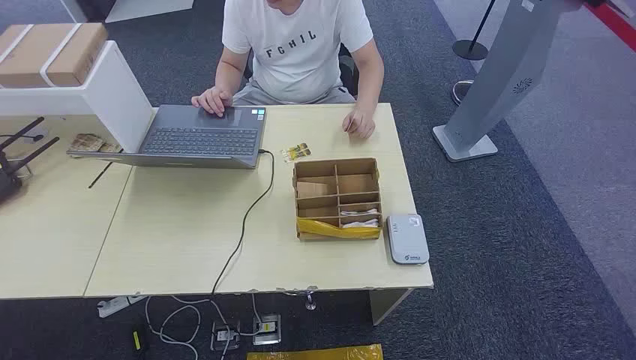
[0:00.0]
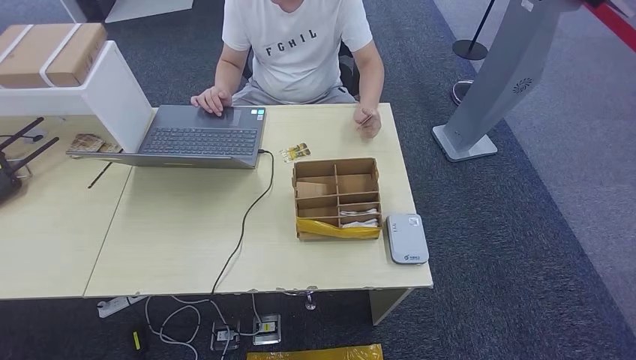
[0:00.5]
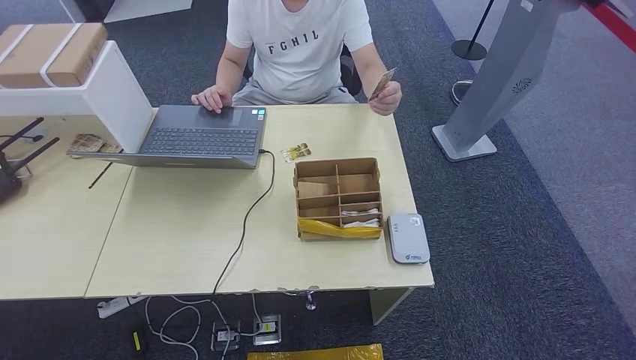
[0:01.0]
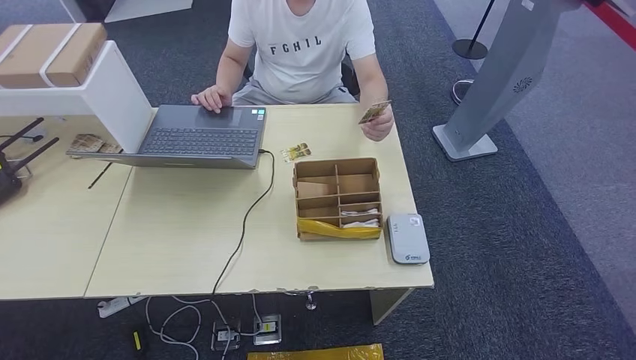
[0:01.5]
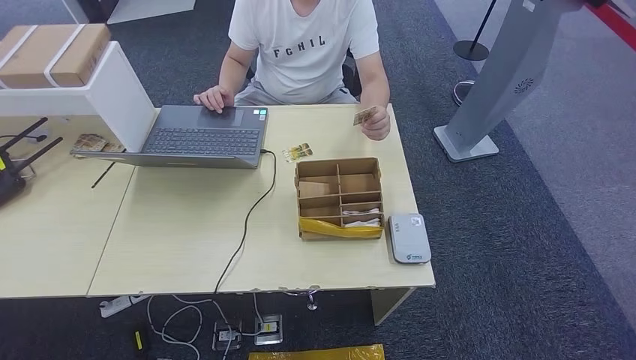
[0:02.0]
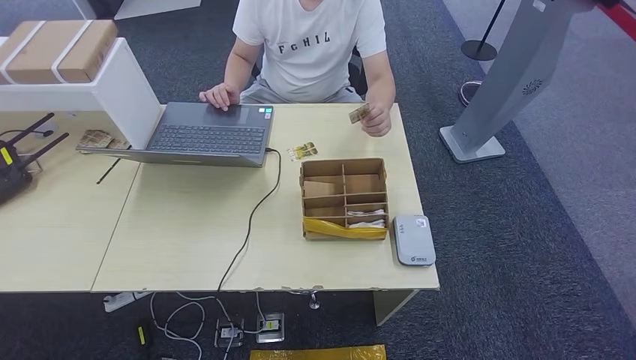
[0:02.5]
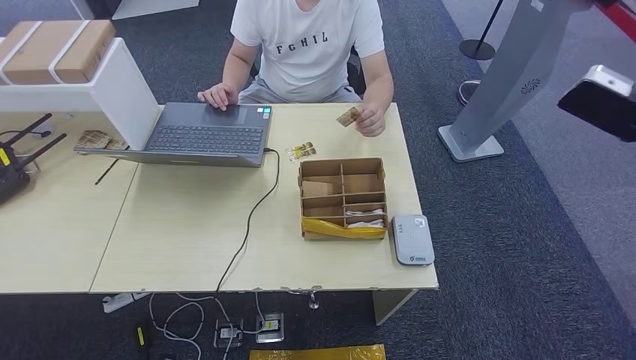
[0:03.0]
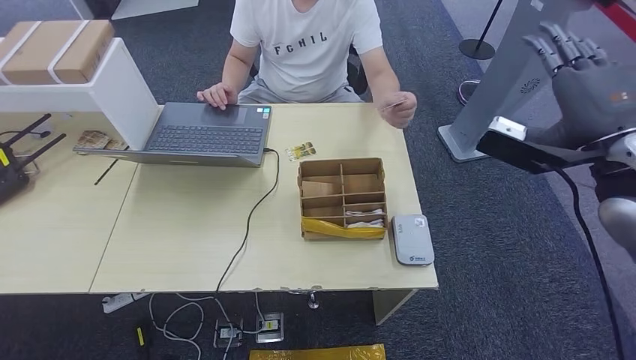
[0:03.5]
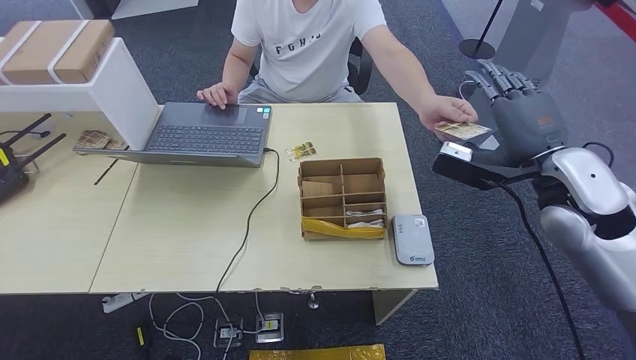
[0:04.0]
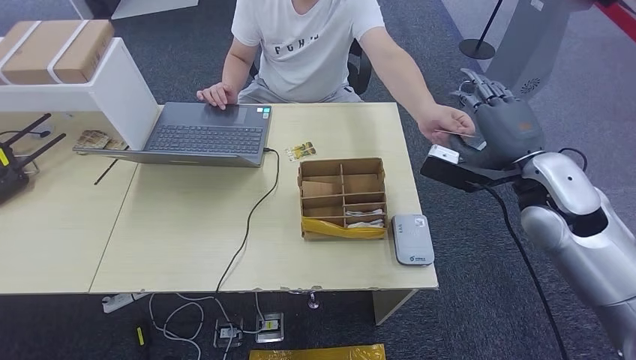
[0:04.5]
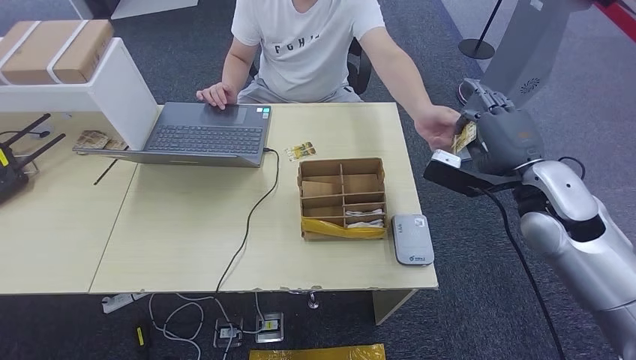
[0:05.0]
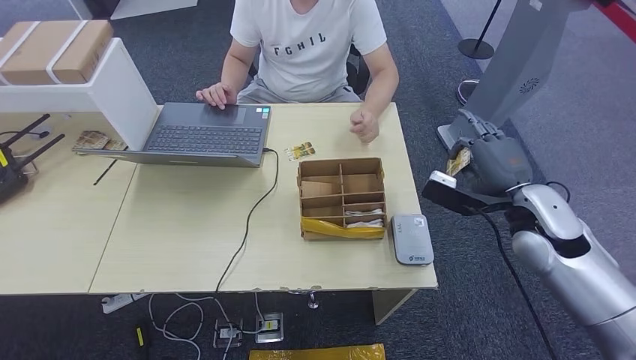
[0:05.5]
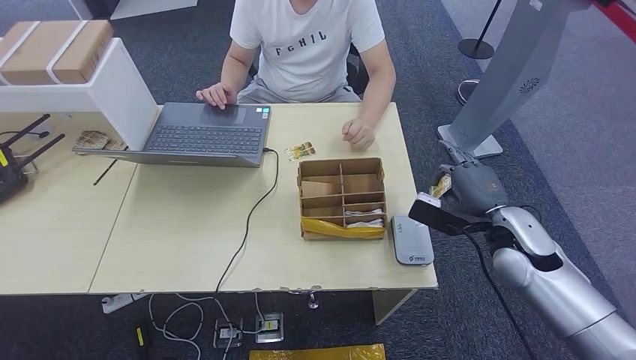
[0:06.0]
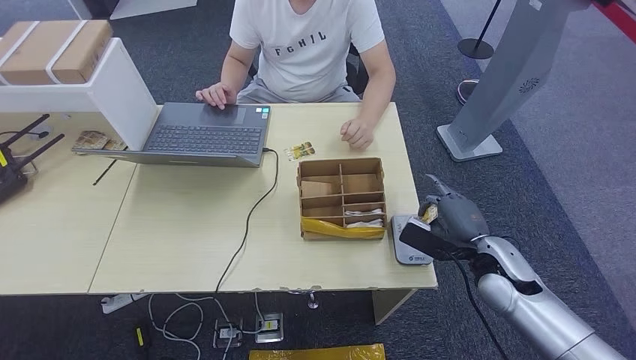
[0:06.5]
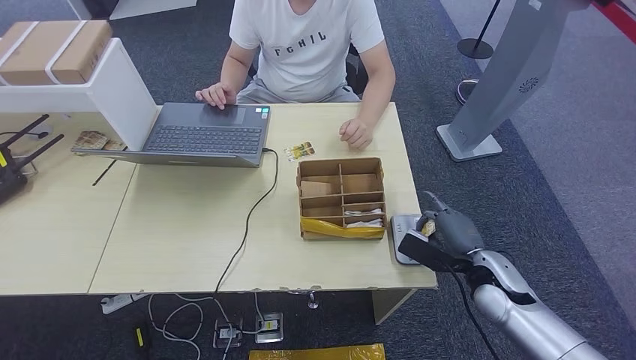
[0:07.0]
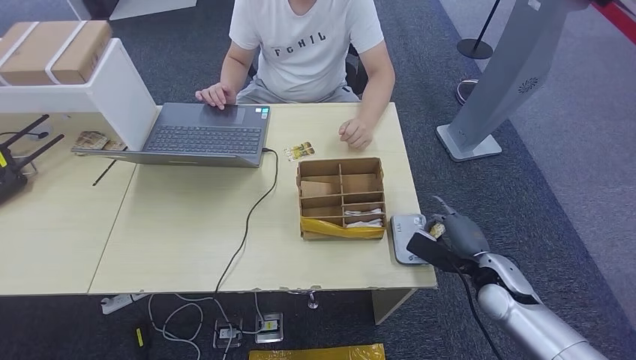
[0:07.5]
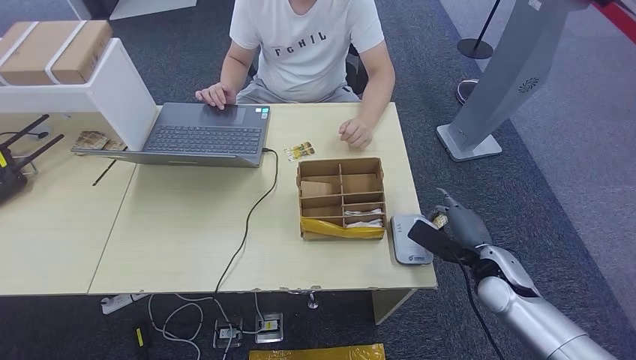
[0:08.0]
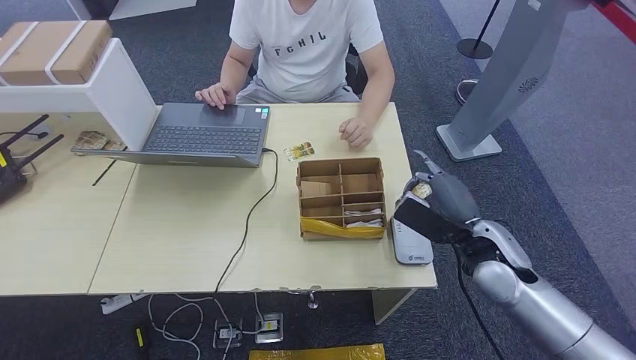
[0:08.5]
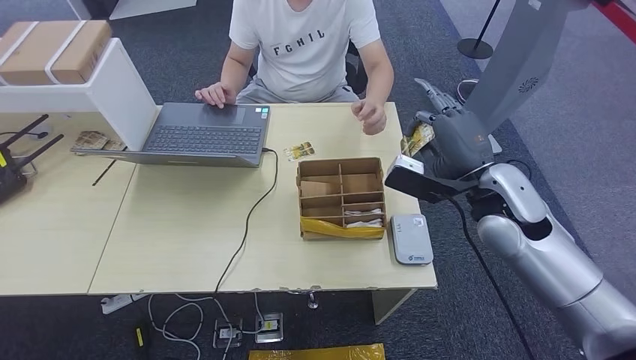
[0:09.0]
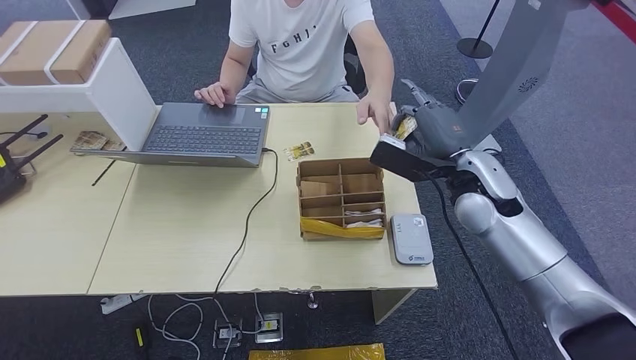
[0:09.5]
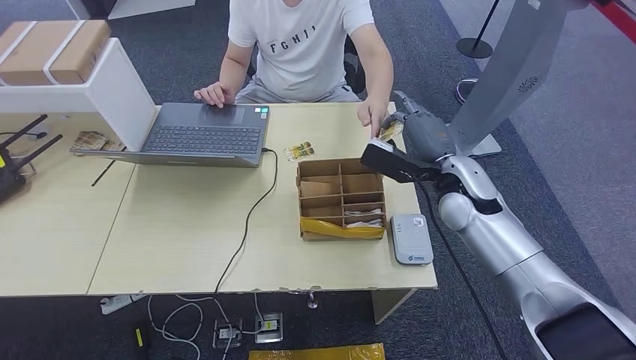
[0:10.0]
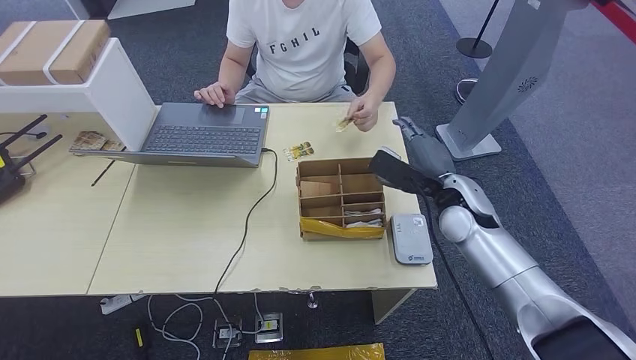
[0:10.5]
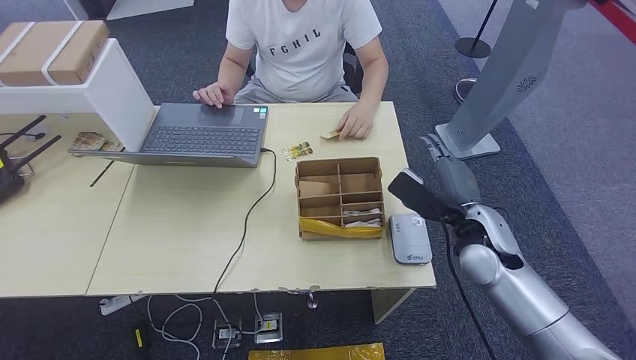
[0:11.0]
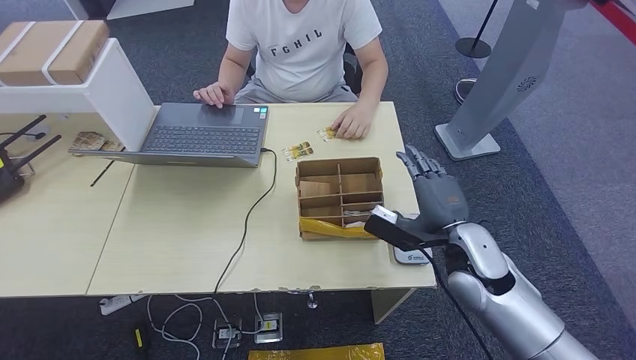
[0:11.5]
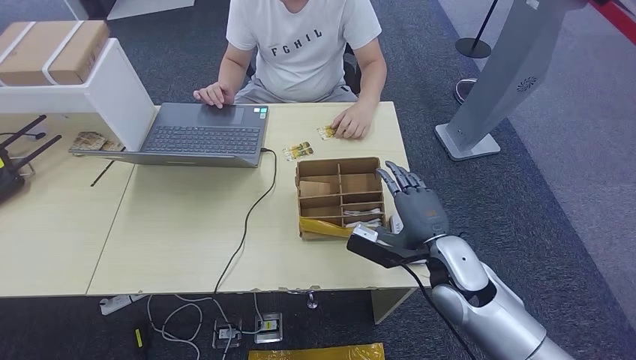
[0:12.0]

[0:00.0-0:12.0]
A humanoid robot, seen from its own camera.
Step, 0:00.0 to 0:04.5: Take the ID card from the person's hand.
Step, 0:05.5 to 0:08.0: Place the ID card on the card reader.
Step, 0:08.5 to 0:10.0: Hand the ID card to the person.
0:02.0 to 0:04.0: The right hand shifts roughly 40 cm to the left and forward.
0:04.0 to 0:06.0: The right hand goes roughly 15 cm downward.
0:06.0 to 0:08.0: The right hand moves downward, roughly 10 cm.
0:08.0 to 0:10.0: The right hand heads upward, forward and to the left, covering approximately 20 cm.
0:10.0 to 0:12.0: The right hand moves backward and downward, roughly 15 cm.

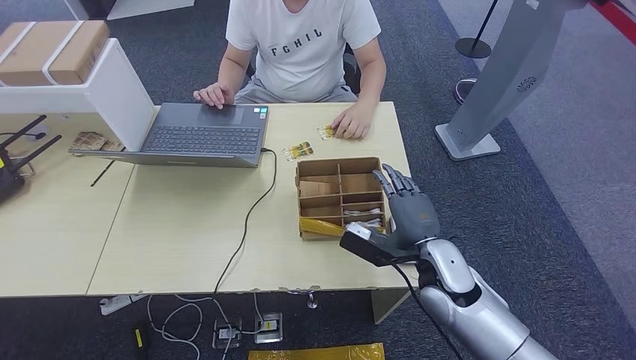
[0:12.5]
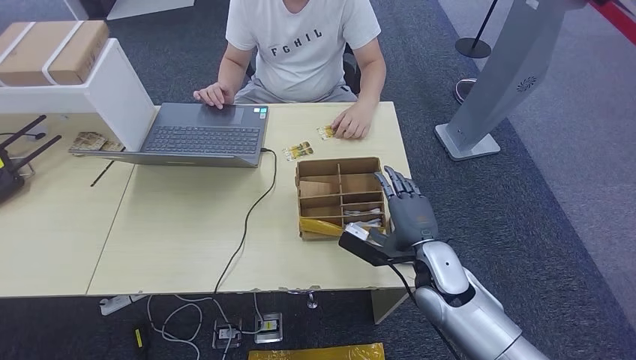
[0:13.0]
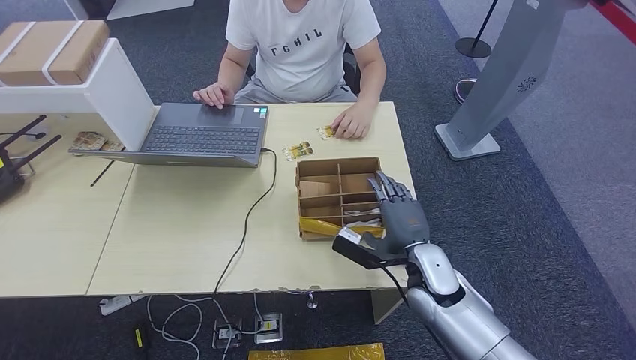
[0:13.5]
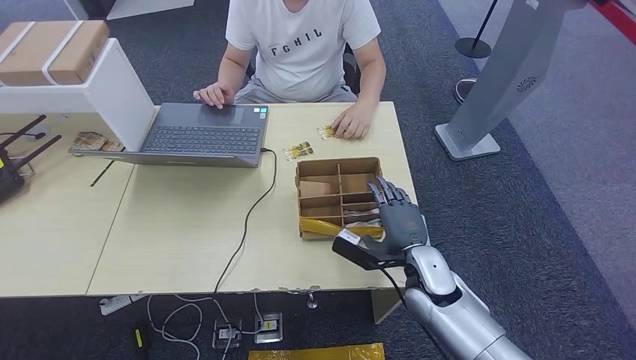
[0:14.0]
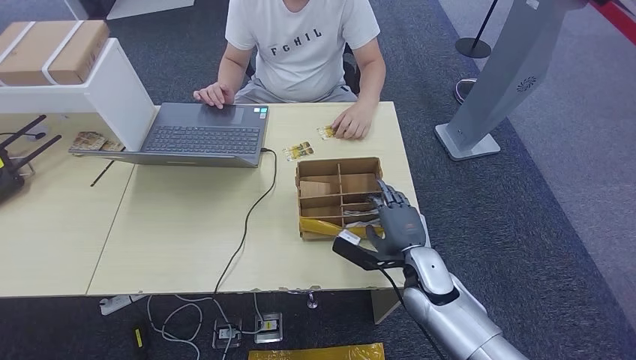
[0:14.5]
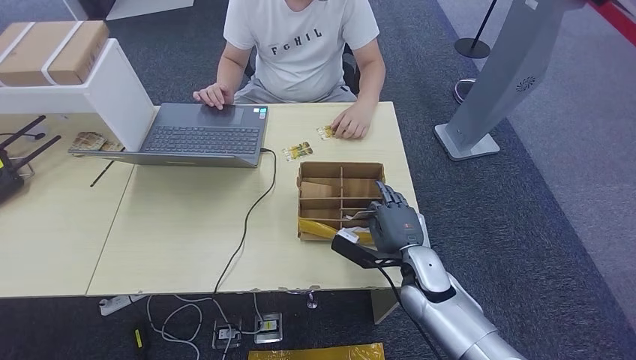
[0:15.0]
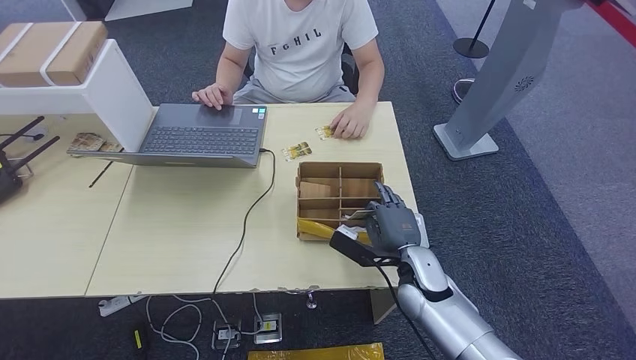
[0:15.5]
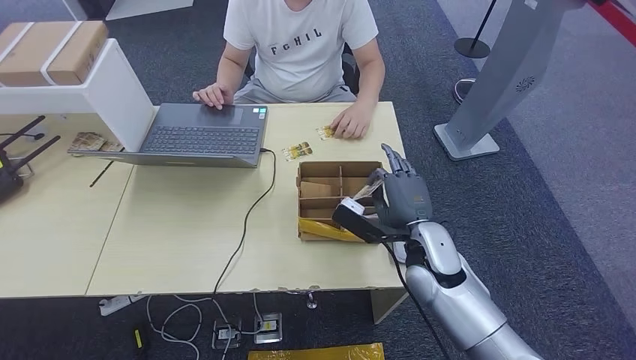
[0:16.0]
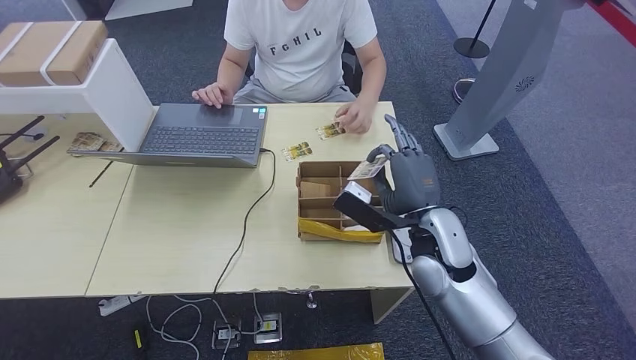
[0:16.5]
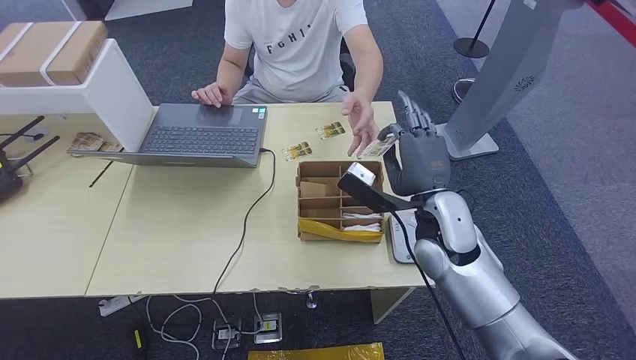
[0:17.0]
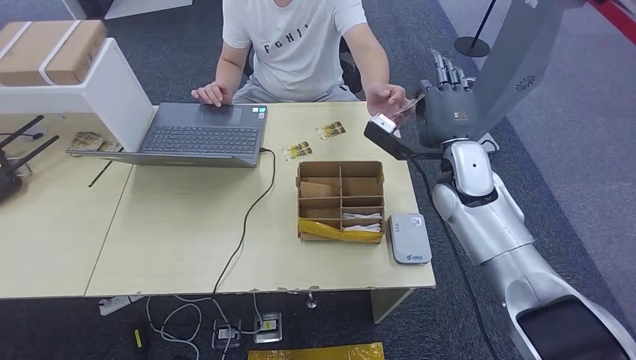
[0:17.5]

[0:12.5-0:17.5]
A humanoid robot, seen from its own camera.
Step, 0:12.5 to 0:15.5: Pick up the room key from the key card box.
Step, 0:16.0 to 0:17.5: Hand the room key to the person.
0:12.5 to 0:15.0: The right hand moves roughly 5 cm.
0:15.0 to 0:17.5: The right hand is displaced upward and forward by about 20 cm.
